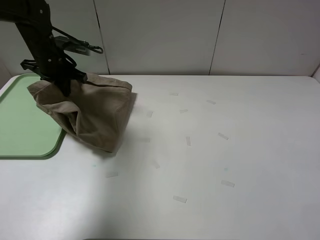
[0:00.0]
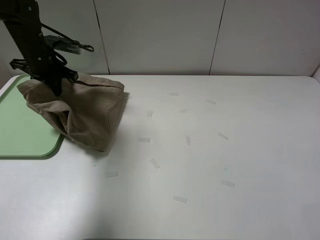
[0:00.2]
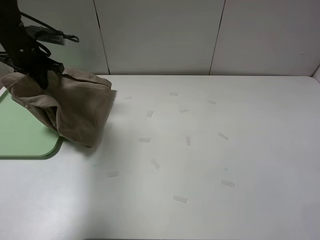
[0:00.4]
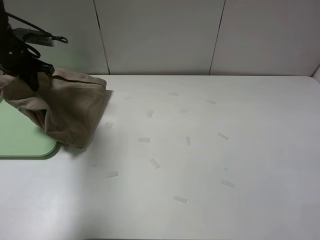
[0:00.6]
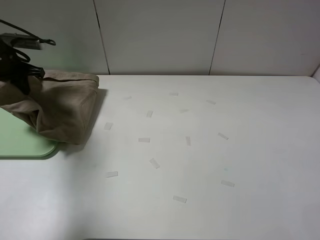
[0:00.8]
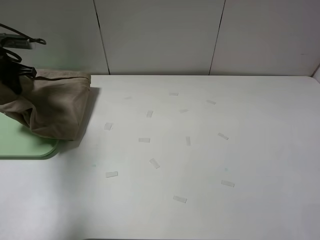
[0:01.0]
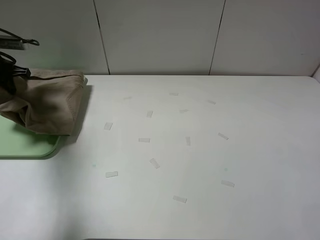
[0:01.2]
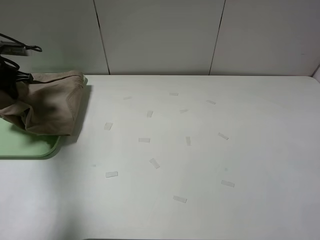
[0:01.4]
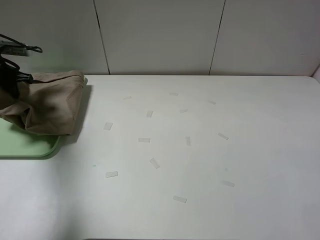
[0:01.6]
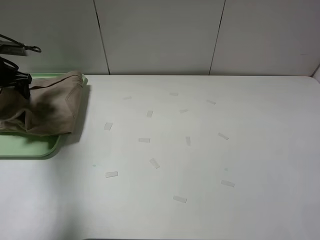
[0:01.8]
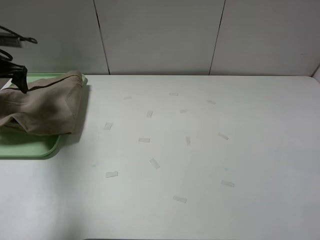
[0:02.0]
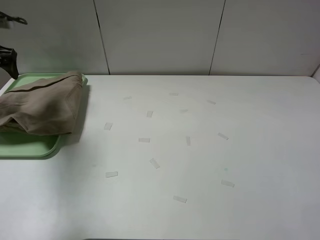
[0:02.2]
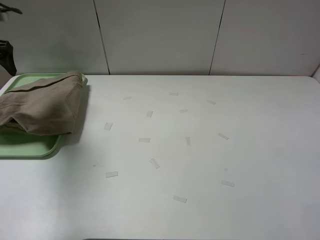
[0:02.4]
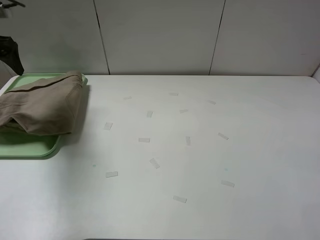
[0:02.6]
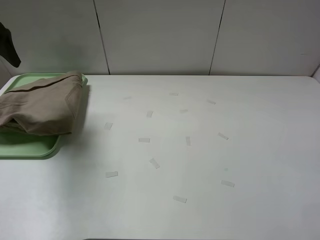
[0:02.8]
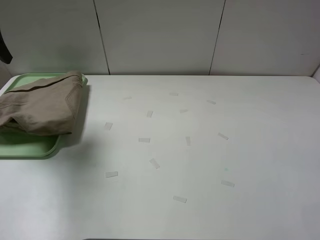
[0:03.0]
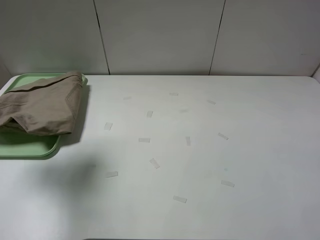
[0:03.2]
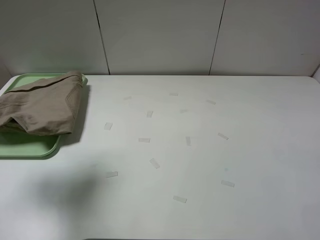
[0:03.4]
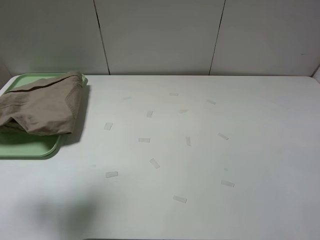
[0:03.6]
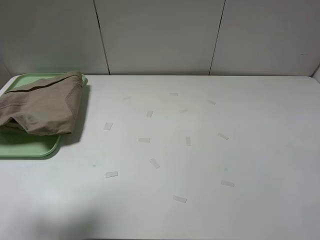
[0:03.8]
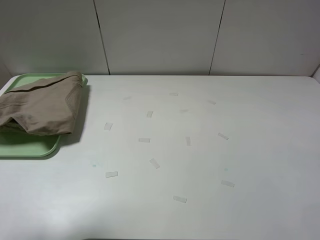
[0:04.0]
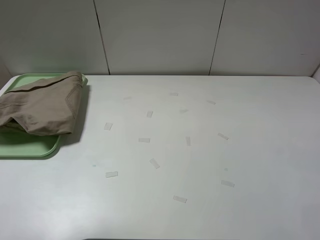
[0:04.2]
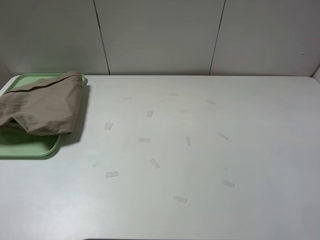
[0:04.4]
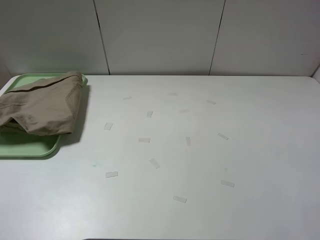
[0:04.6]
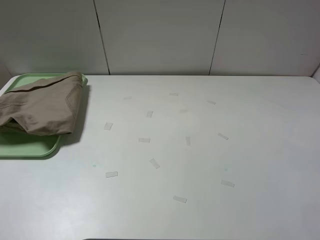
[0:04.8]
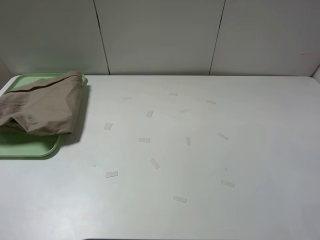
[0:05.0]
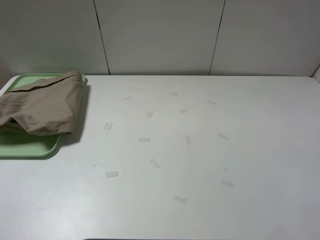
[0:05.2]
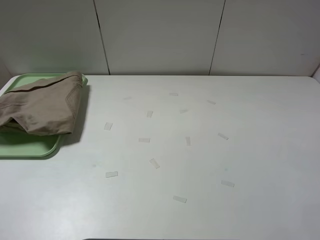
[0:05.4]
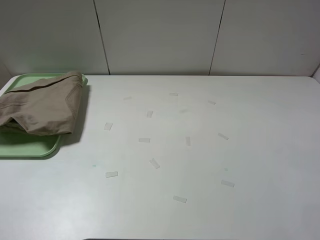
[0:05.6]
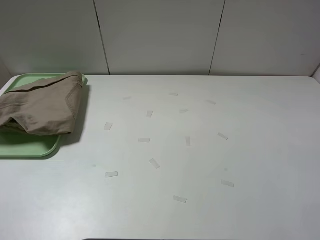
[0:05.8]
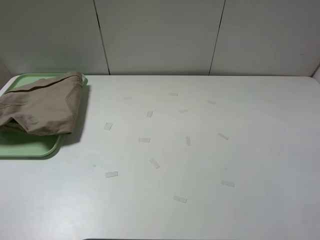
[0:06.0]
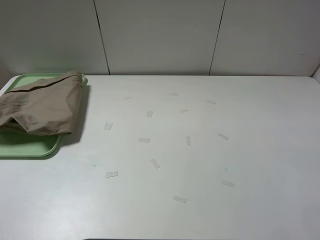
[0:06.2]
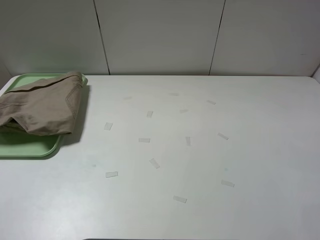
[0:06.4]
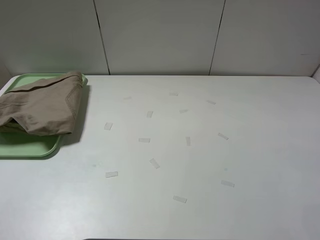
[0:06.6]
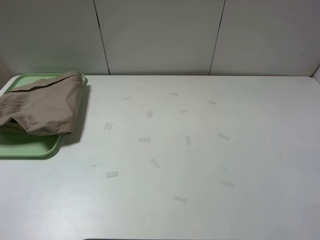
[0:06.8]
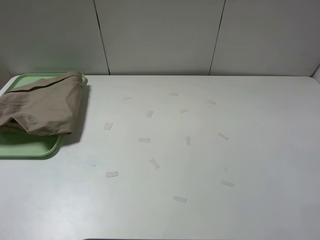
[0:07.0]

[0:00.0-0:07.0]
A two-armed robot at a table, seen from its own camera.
Task of the whole recording: fold the khaki jeans in half with two grippers, then fold them in half again, and use the left claw to place the folded fold khaki jeans on the tray.
Step, 0:00.0 to 0:02.2: Place the folded khaki trousers on the green tray with the left gripper.
0:00.0 to 0:01.4: The left gripper travels to the left by some 15 cm.
0:01.4 to 0:02.8: The left gripper moves upward and backward, approximately 15 cm, and opens its fingers.
0:02.8 to 0:04.2: The left gripper goes about 25 cm backward.

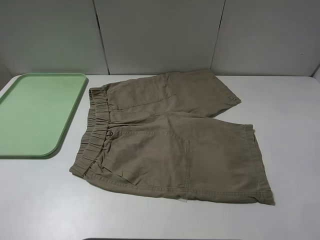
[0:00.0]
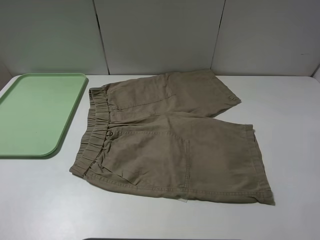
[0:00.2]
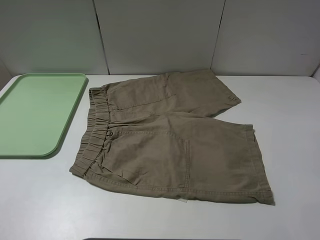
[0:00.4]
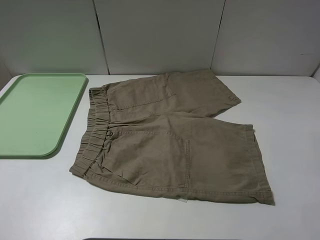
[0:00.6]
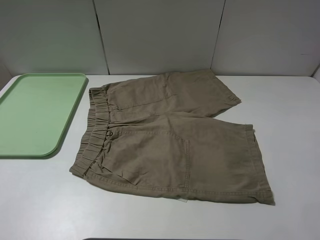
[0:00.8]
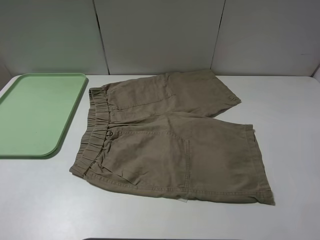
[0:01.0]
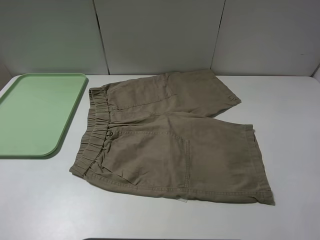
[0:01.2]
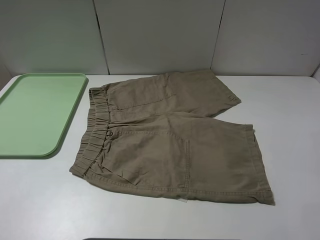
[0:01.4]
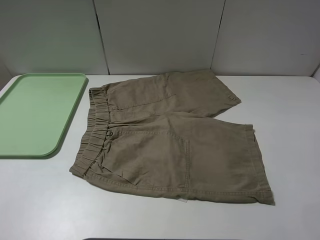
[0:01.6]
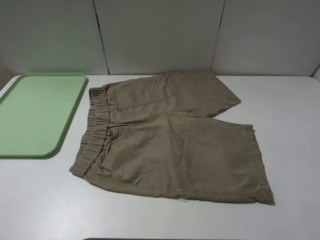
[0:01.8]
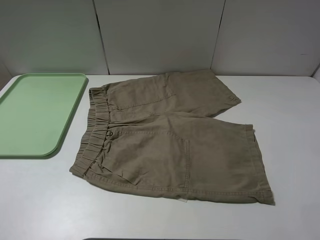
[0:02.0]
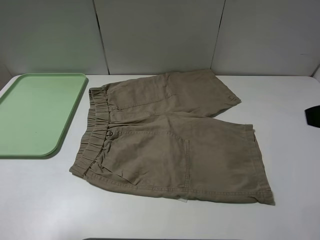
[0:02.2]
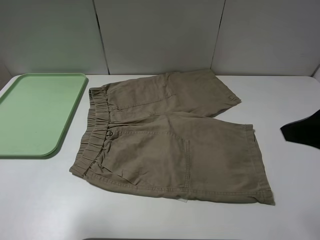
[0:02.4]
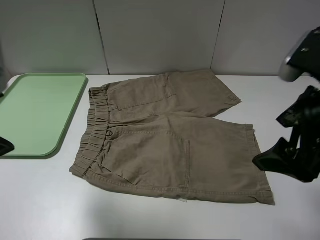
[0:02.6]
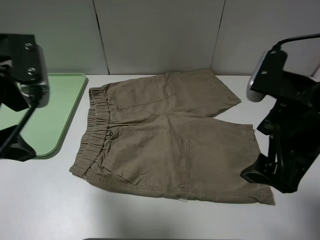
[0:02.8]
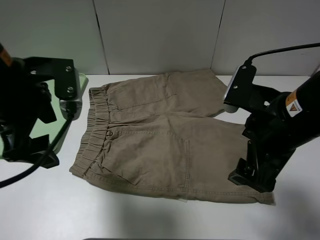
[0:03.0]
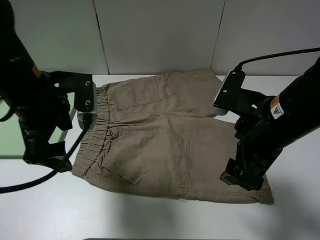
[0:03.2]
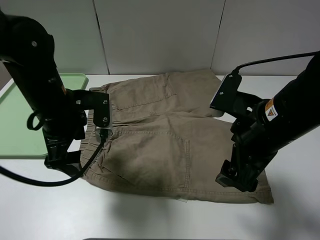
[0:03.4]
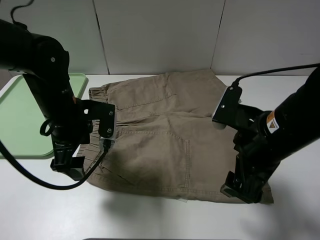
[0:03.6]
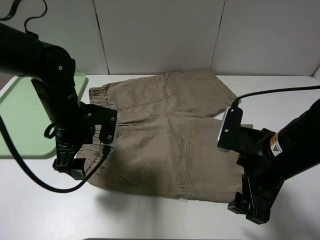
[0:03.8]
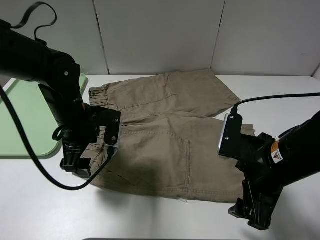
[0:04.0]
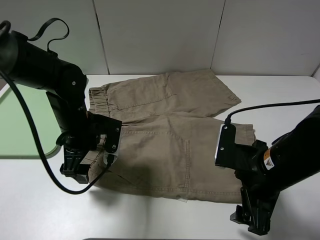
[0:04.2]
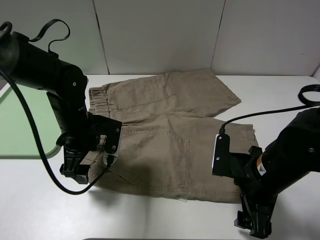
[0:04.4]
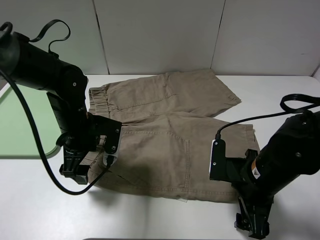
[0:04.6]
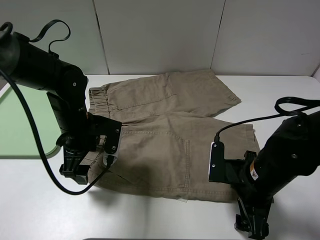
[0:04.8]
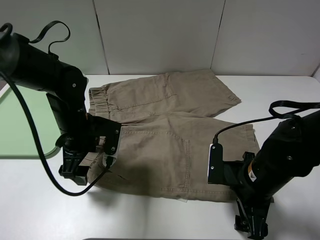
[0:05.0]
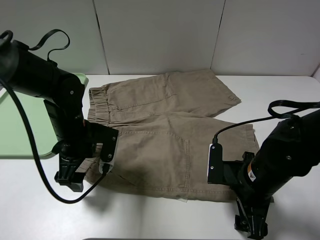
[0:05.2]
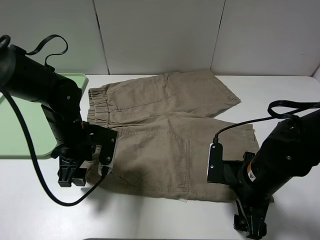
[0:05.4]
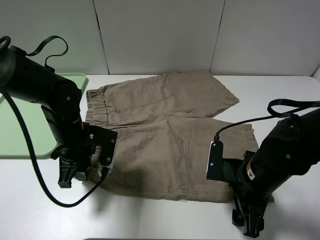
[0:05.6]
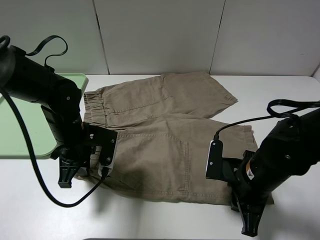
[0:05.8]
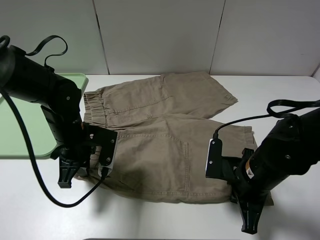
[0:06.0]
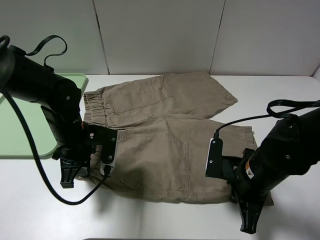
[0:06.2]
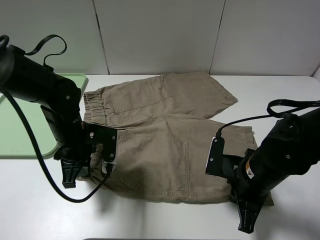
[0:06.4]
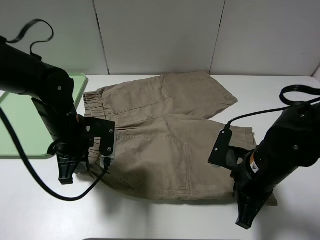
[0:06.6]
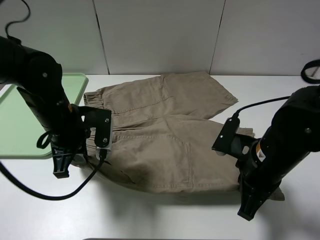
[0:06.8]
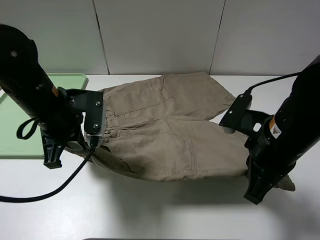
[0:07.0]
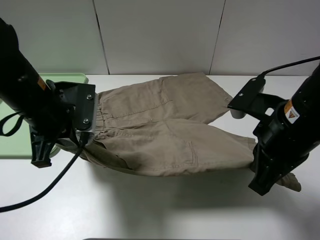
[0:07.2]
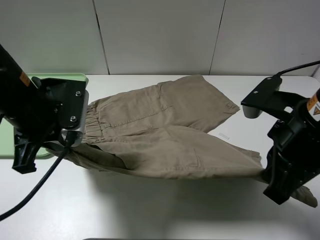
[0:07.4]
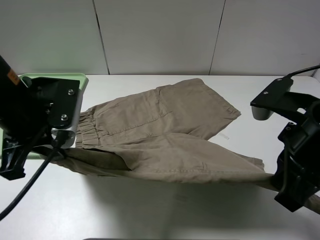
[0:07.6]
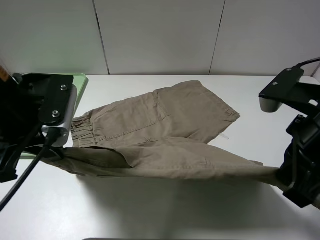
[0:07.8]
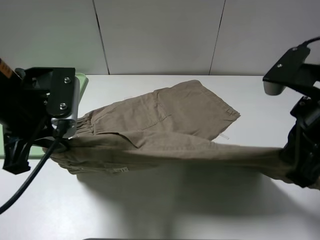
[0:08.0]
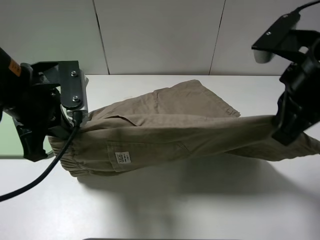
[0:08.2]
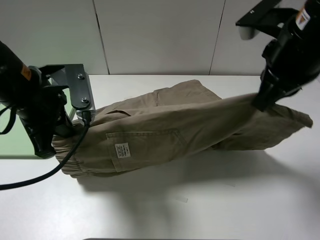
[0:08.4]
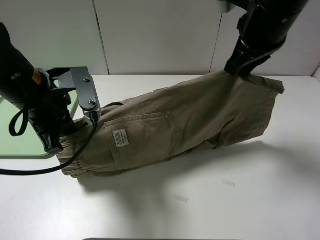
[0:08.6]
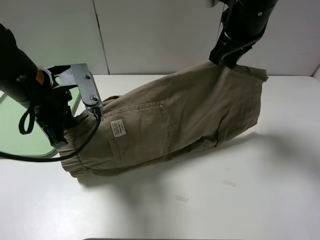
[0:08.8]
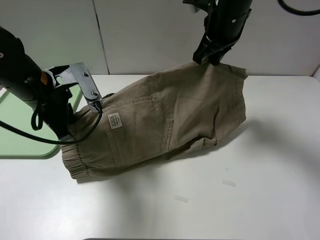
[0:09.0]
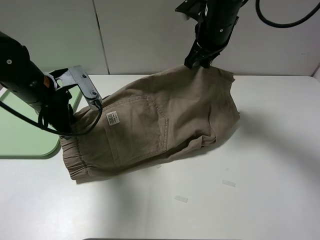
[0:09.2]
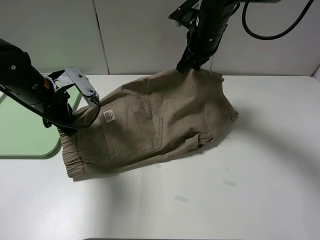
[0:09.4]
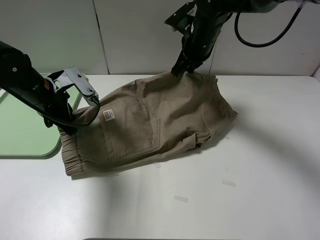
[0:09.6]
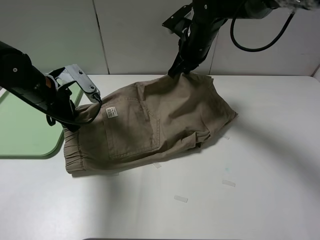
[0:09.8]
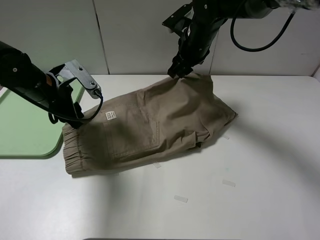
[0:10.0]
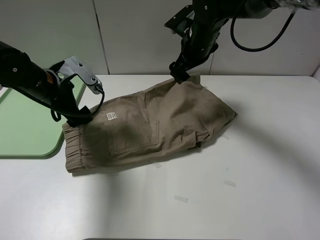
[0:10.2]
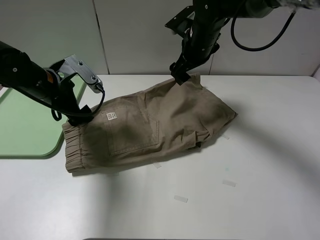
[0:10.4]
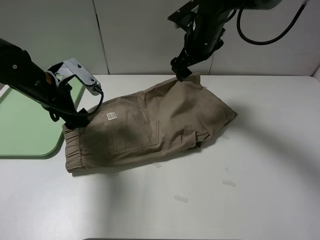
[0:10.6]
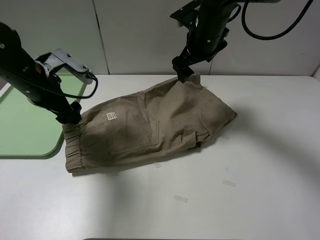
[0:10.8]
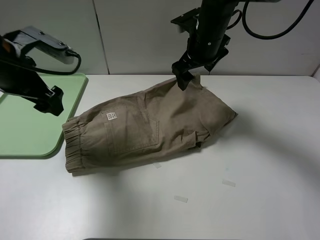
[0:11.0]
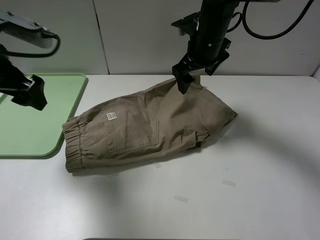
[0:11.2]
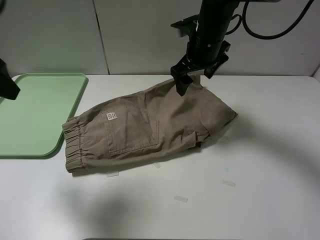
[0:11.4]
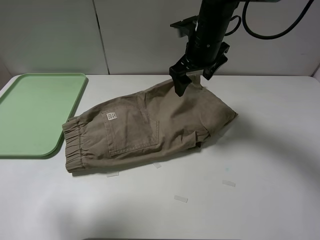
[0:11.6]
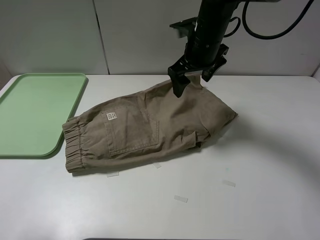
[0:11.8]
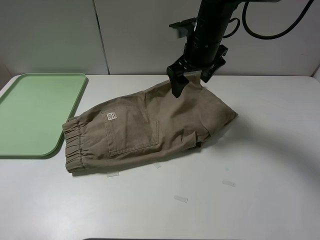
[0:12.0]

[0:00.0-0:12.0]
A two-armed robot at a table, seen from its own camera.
Task of the whole recording: fold the khaki jeans in half with two grippers, then fold them in half again, and use the left claw to place the folded fold khaki jeans on the tray.
Step, 0:00.0 to 0:05.8: Grasp the khaki trousers with the left gripper.
Step, 0:06.0 to 0:10.0: Fold the khaki trousers upwards with the left gripper.
0:00.0 to 0:01.6: Neither gripper changes place.
0:01.6 to 0:03.0: The right gripper is displaced forward and to the left by some 20 cm. The left gripper travels forward and to the right by some 25 cm.
0:03.0 to 0:04.4: The two grippers go roughly 10 cm downward.
0:04.4 to 0:06.0: The right gripper closes; the left gripper closes.
0:06.0 to 0:07.6: The left gripper moves upward and backward, about 15 cm. Meanwhile the right gripper is displaced upward by roughly 15 cm.
0:07.6 to 0:09.0: The left gripper travels forward by some 10 cm. The right gripper heads forward, covering roughly 25 cm.
0:09.0 to 0:10.4: The left gripper ends up roughly 5 cm from where it was, and opens its fingers. Meanwhile the right gripper shifts about 5 cm downward, and opens.
0:10.4 to 0:12.0: The left gripper moves backward and upward, about 30 cm.

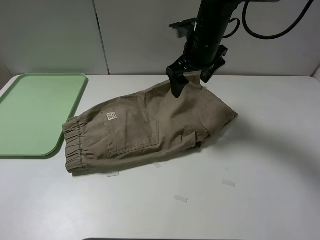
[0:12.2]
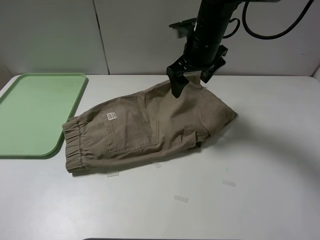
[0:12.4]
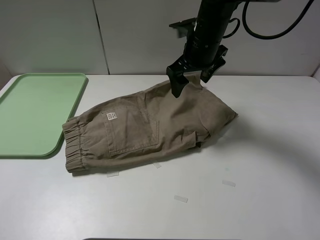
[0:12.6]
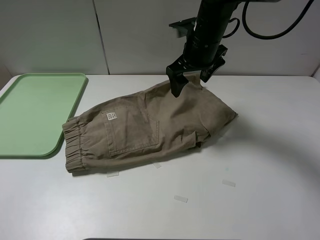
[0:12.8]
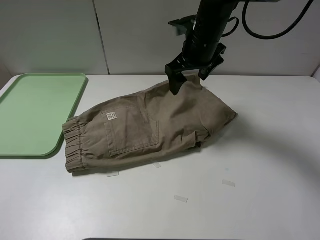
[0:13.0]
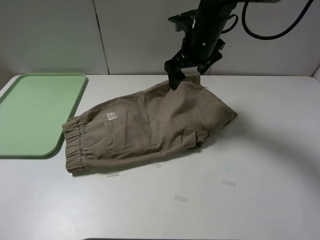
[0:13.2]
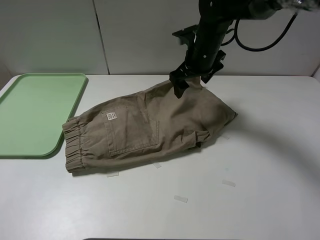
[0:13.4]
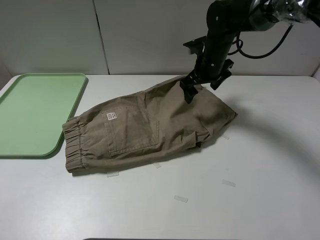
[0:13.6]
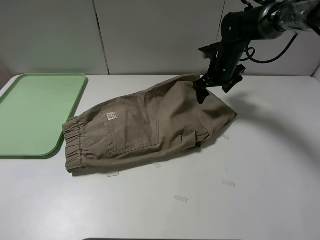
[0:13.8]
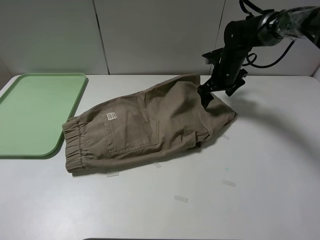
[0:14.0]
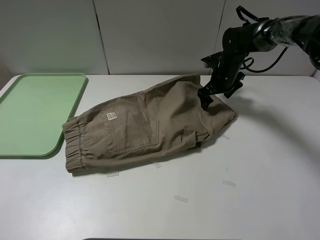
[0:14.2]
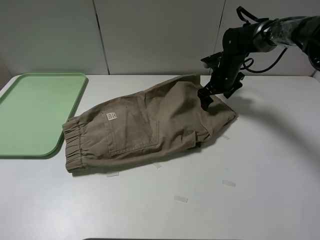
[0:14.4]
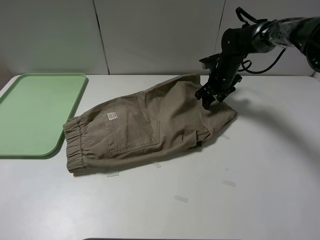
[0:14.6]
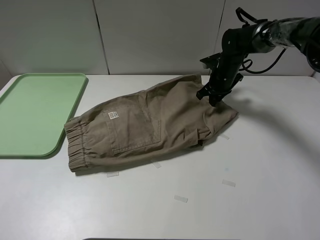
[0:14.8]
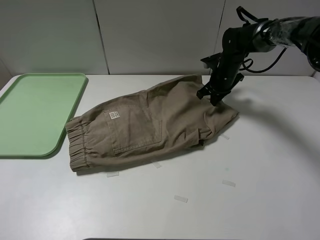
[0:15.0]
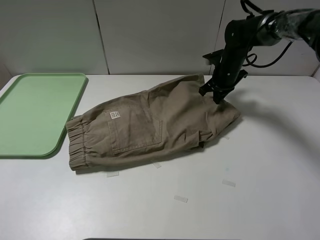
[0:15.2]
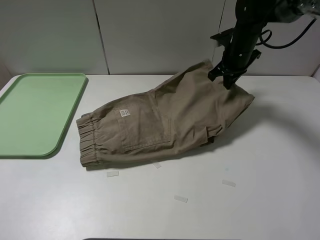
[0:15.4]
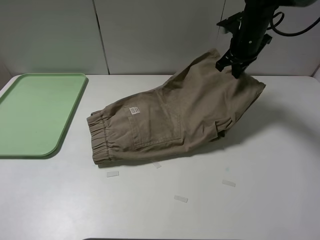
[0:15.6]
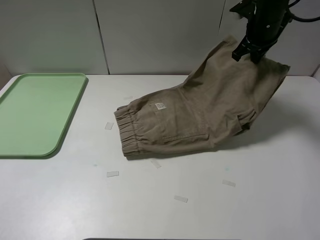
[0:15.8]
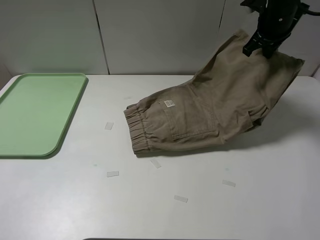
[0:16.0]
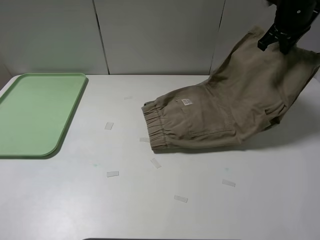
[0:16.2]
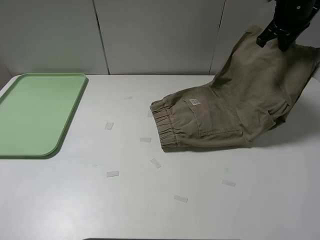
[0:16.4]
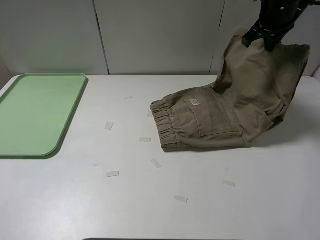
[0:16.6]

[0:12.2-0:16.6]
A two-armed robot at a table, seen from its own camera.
Task of the whole recording: fold the khaki jeans in half with two grippers, then fold them in half again, and use the left claw to place the folded fold khaki jeans on the tray.
Step, 0:12.2 to 0:14.8: Grasp the khaki trousers with the right gripper.
0:12.2 to 0:13.6: The right gripper goes approximately 10 cm downward and forward.
0:13.6 to 0:15.2: The right gripper heads to the right, covering some 5 cm, and closes its fingers.
0:15.2 to 0:16.6: The right gripper travels upward by roughly 15 cm.
